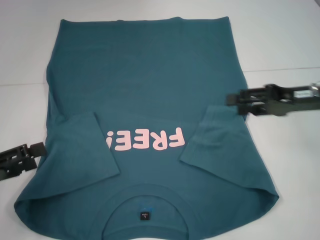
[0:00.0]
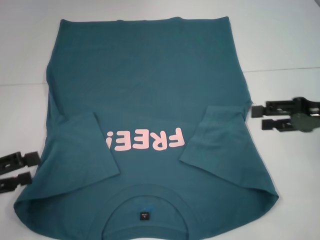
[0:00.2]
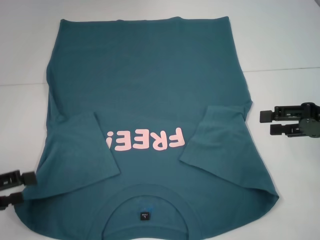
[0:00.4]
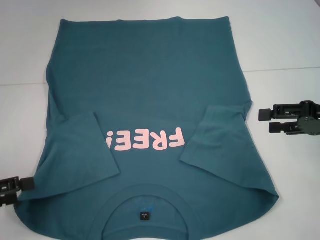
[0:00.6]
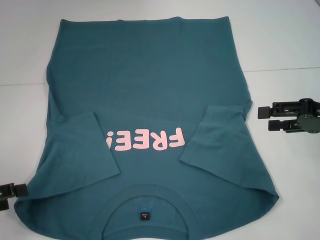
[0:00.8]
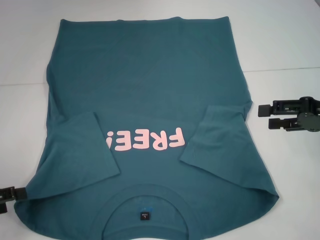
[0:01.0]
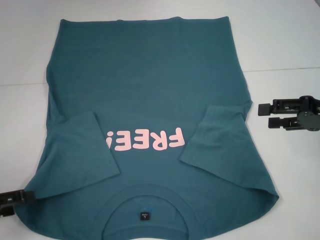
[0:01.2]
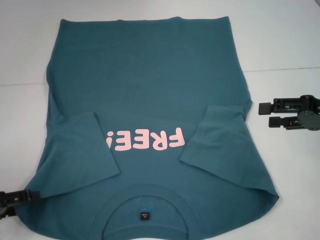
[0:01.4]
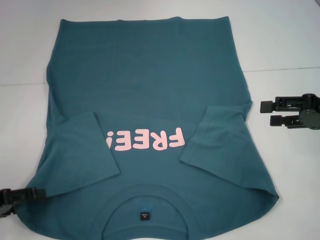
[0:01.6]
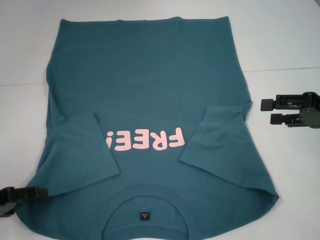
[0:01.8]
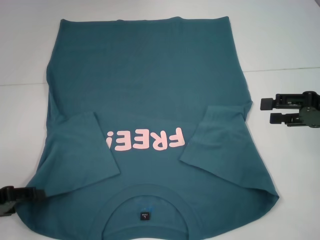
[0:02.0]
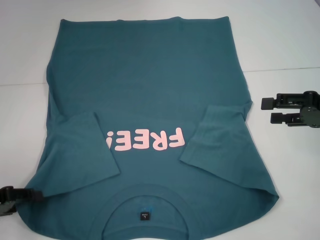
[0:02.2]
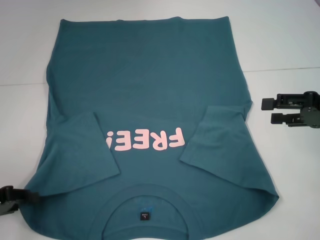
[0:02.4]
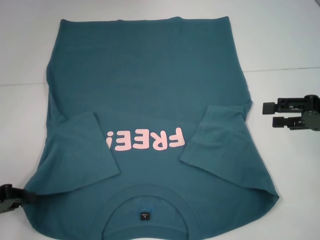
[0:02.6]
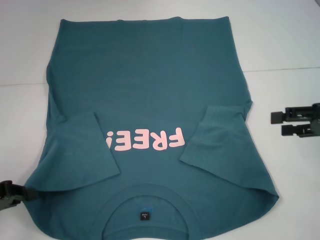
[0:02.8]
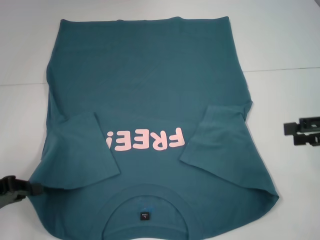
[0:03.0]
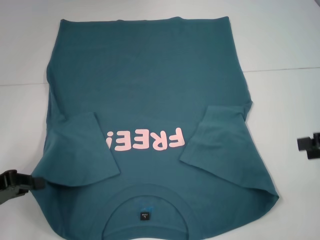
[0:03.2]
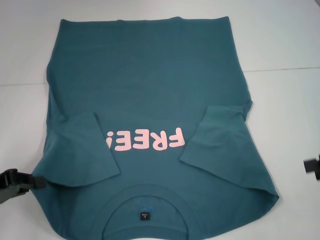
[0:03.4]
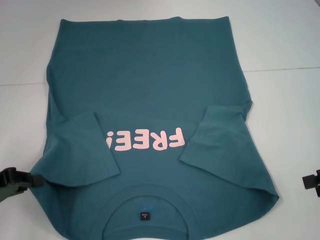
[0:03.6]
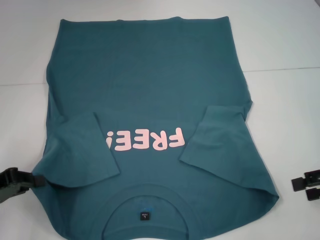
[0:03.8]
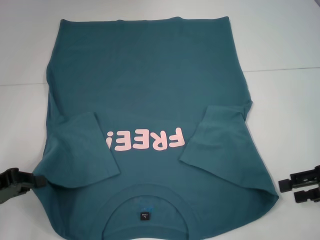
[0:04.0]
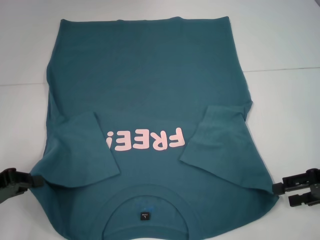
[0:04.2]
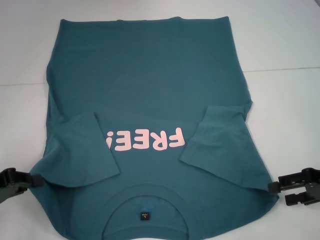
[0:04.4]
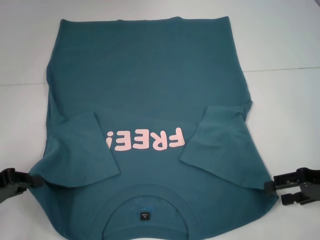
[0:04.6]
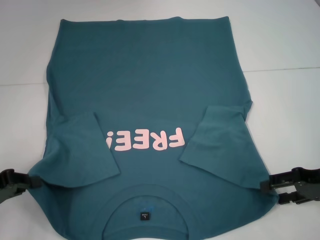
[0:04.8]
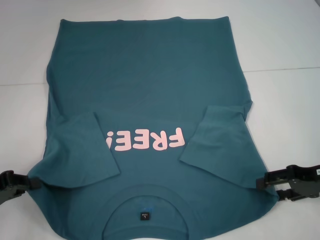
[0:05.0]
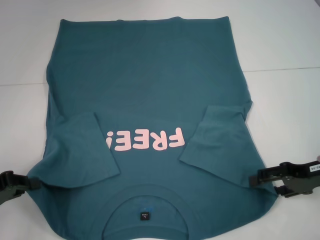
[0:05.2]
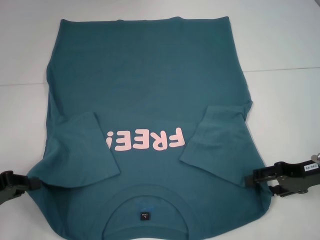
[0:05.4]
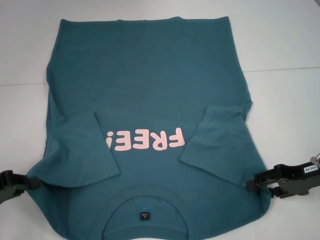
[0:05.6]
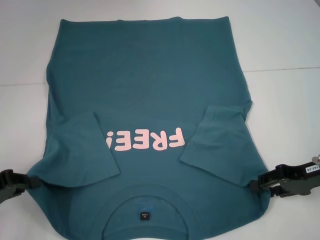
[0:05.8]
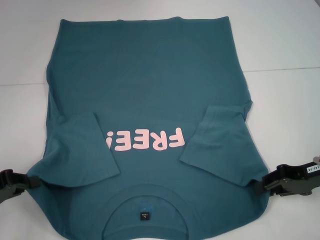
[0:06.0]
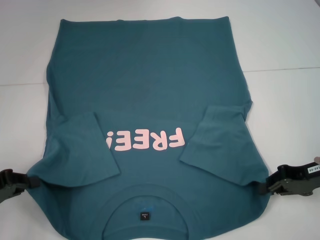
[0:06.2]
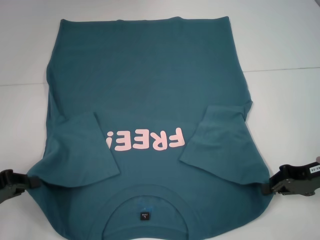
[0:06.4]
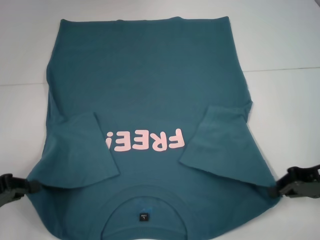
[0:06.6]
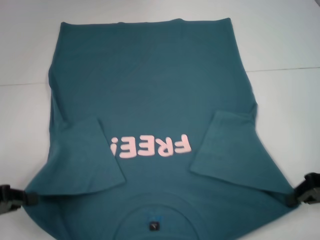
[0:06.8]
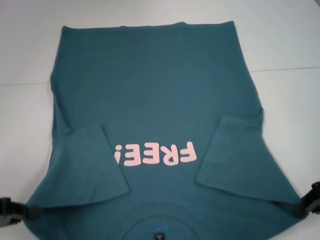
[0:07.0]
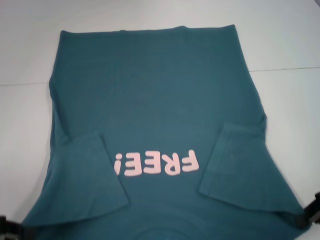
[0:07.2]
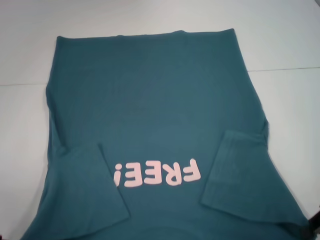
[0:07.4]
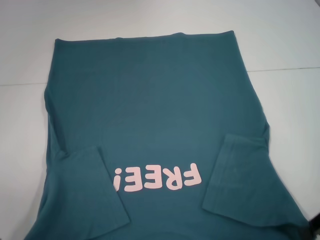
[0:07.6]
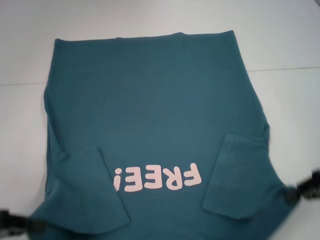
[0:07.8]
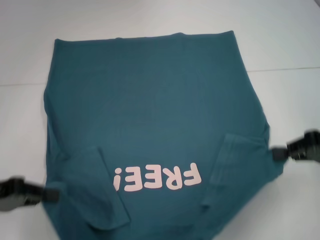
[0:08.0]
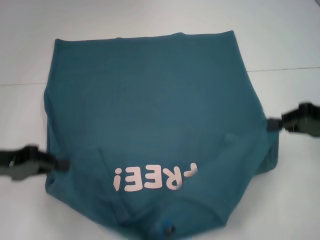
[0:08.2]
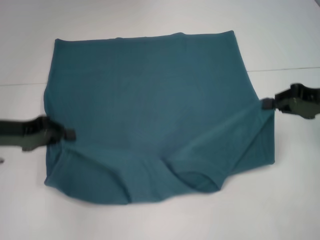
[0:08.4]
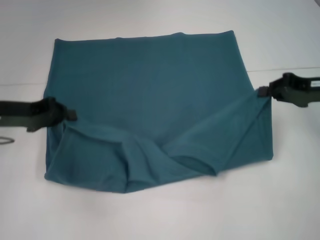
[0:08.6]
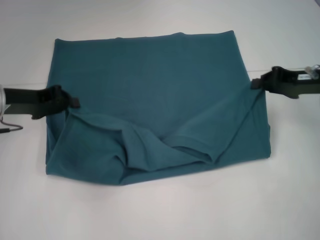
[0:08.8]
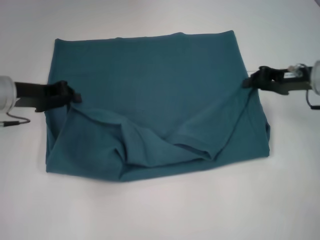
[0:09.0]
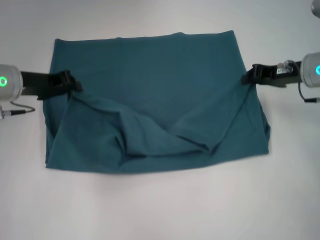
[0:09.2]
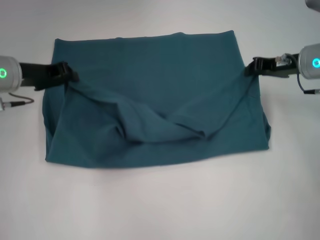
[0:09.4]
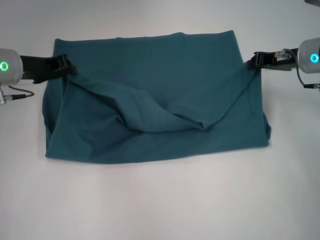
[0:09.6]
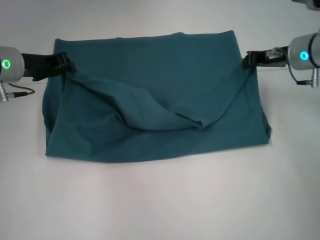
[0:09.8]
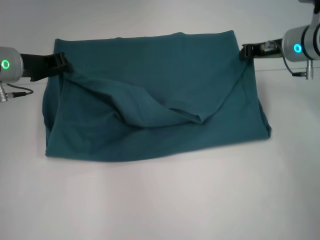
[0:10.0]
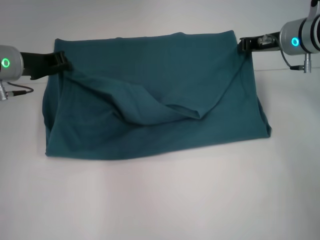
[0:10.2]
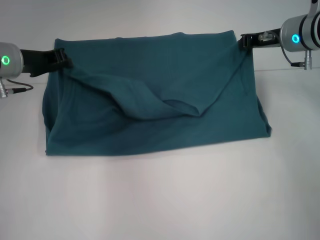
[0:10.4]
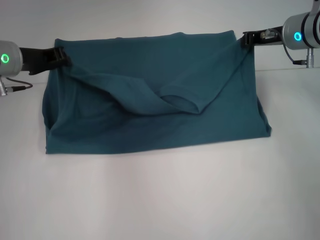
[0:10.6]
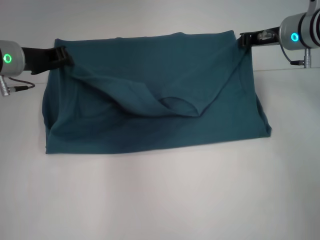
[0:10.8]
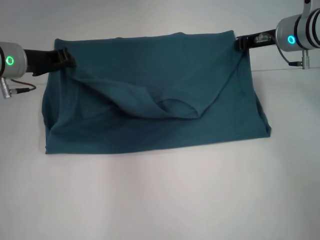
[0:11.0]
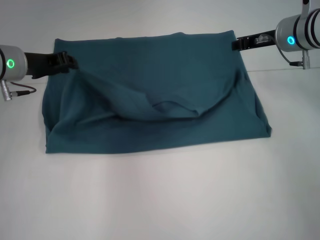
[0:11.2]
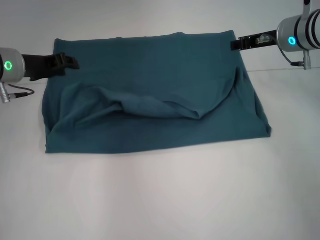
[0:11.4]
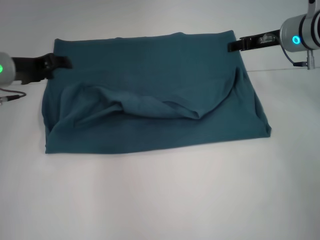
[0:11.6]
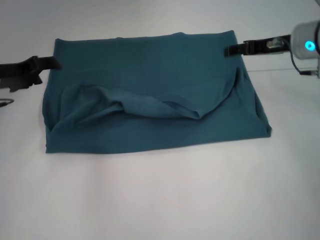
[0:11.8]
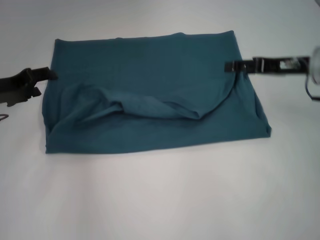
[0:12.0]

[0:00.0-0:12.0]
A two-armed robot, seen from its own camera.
Step, 0:00.0 to 0:02.4: Grab the bottom left corner with your left hand.
Step, 0:02.6 to 0:06.2: Grab the bottom right corner with your right hand.
Step, 0:06.4 to 0:11.2: Fold the clothes to the right.
0:00.0 to 0:01.6: The right gripper ends up about 5 cm from where it was.
0:01.6 to 0:03.0: The left gripper closes.
0:03.0 to 0:04.4: The right gripper moves downward, approximately 5 cm.
0:04.4 to 0:06.0: The right gripper closes.
0:06.0 to 0:07.6: The grippers both shift backward by some 5 cm. The right gripper closes up.
0:07.6 to 0:09.0: The left gripper goes approximately 20 cm forward and to the right; the right gripper travels forward and to the left by roughly 15 cm.
0:09.0 to 0:10.4: The right gripper heads forward, covering approximately 5 cm.
0:10.4 to 0:12.0: The left gripper is displaced to the left by roughly 5 cm, and opens, while the right gripper shifts about 5 cm backward, and opens up.

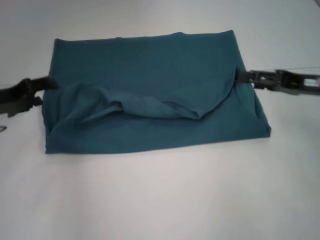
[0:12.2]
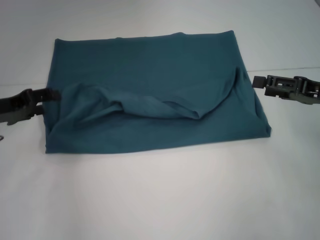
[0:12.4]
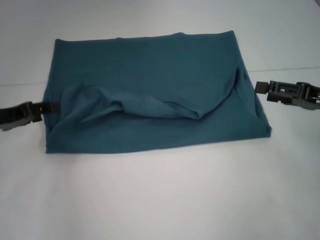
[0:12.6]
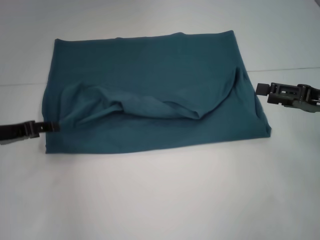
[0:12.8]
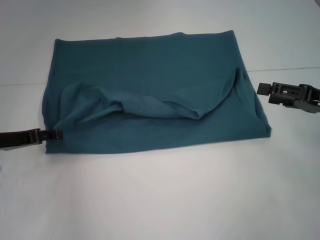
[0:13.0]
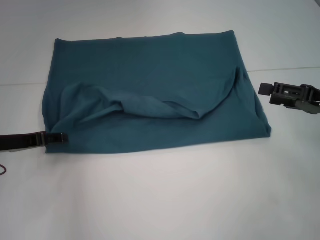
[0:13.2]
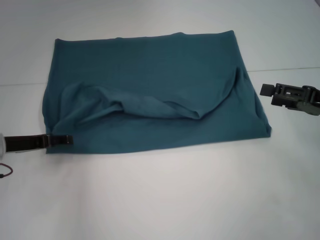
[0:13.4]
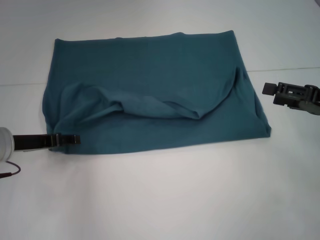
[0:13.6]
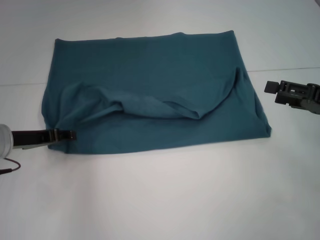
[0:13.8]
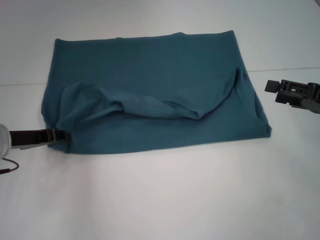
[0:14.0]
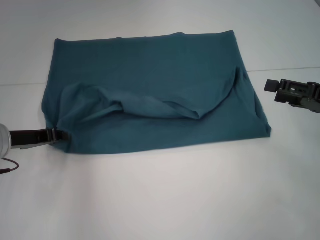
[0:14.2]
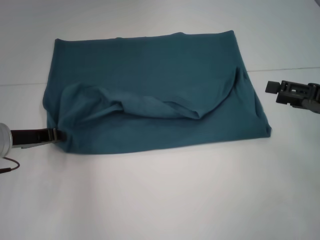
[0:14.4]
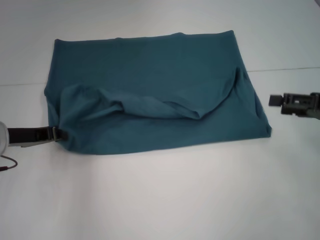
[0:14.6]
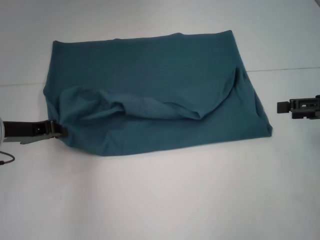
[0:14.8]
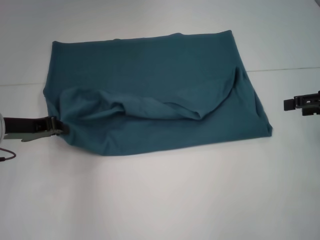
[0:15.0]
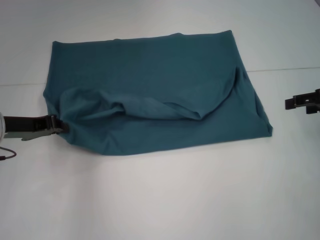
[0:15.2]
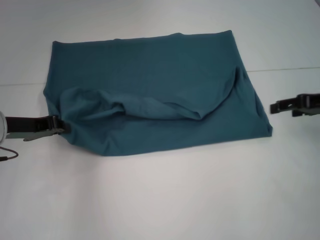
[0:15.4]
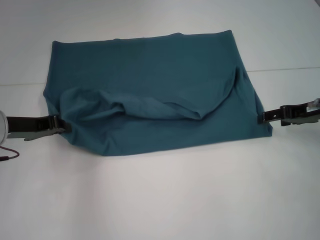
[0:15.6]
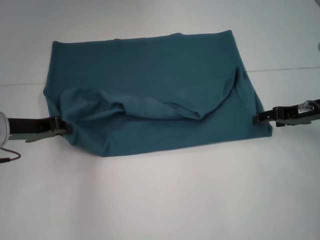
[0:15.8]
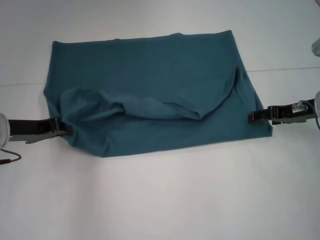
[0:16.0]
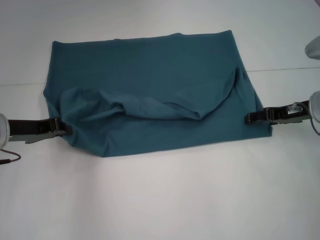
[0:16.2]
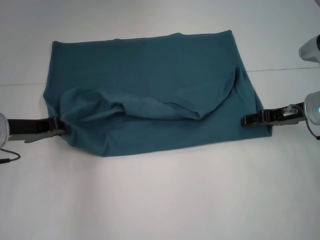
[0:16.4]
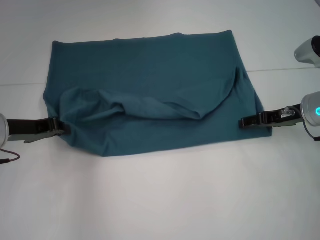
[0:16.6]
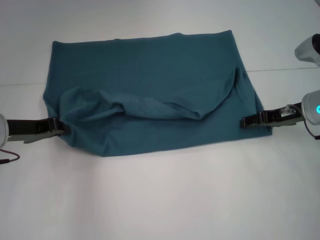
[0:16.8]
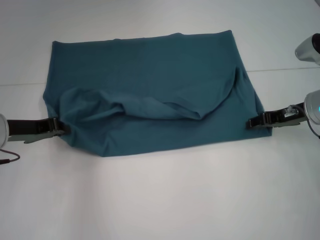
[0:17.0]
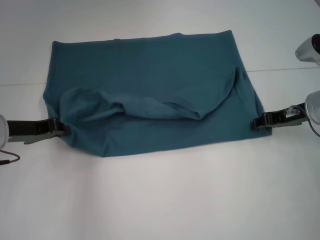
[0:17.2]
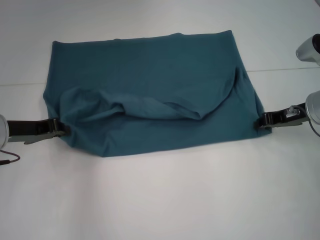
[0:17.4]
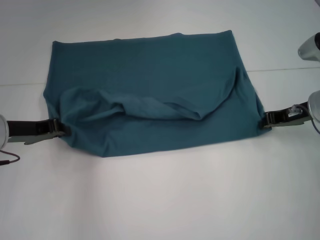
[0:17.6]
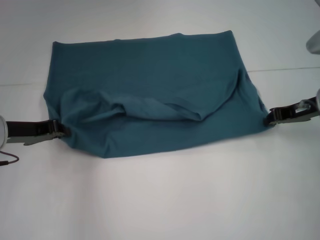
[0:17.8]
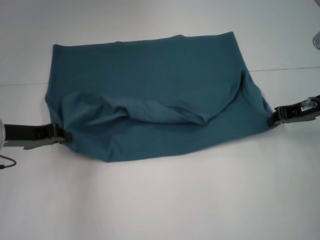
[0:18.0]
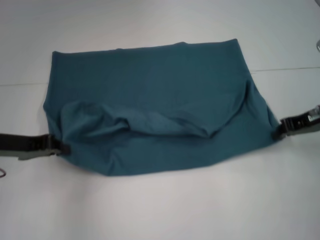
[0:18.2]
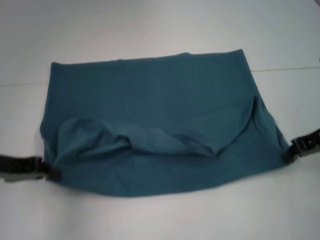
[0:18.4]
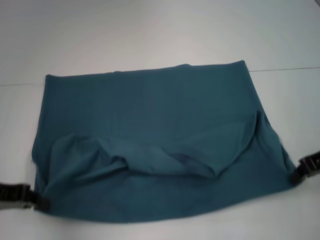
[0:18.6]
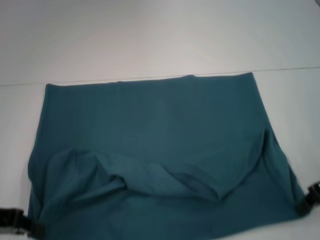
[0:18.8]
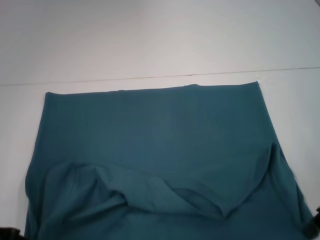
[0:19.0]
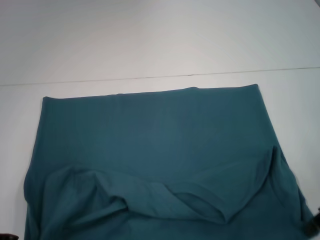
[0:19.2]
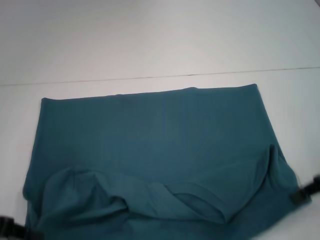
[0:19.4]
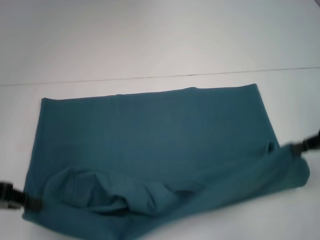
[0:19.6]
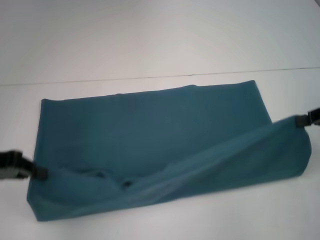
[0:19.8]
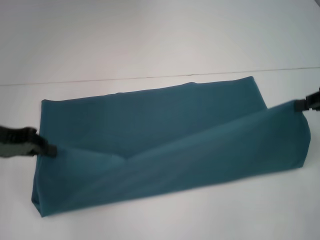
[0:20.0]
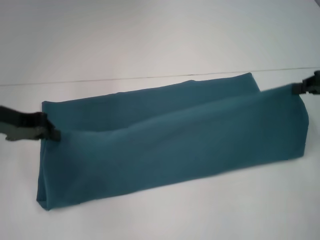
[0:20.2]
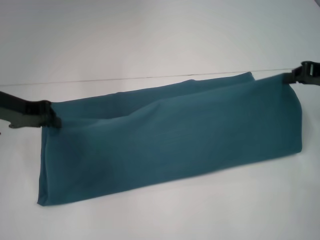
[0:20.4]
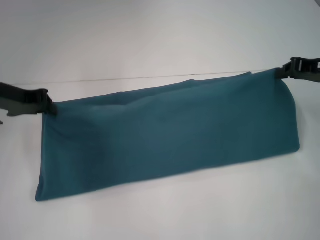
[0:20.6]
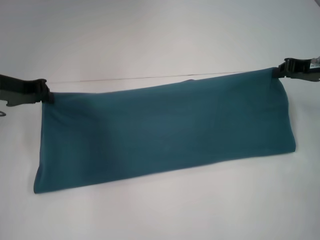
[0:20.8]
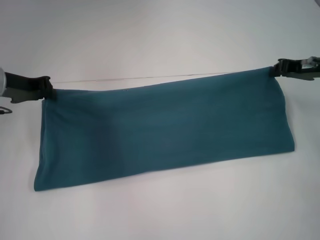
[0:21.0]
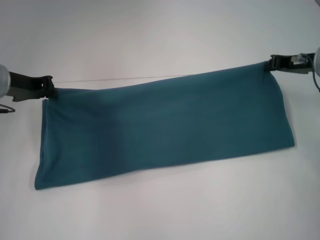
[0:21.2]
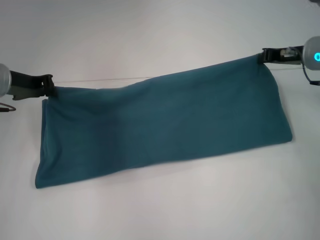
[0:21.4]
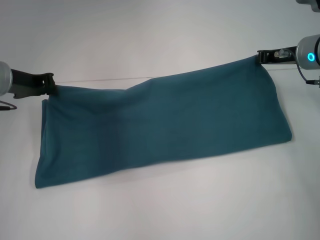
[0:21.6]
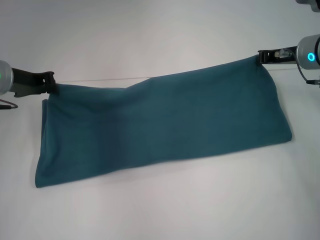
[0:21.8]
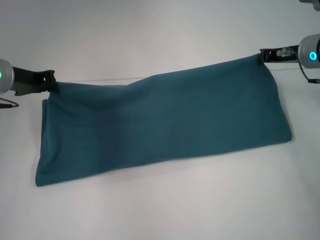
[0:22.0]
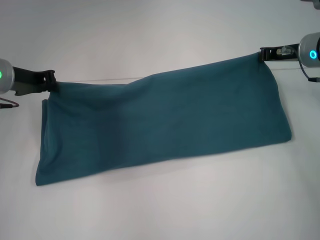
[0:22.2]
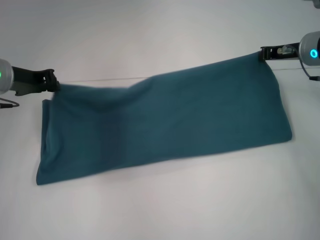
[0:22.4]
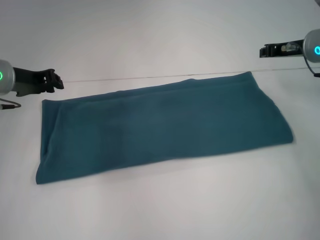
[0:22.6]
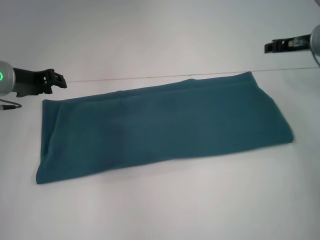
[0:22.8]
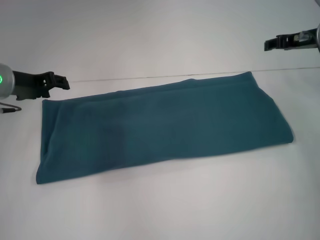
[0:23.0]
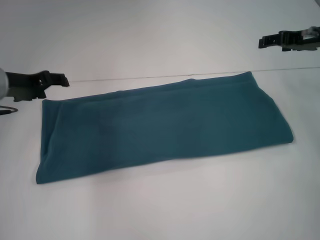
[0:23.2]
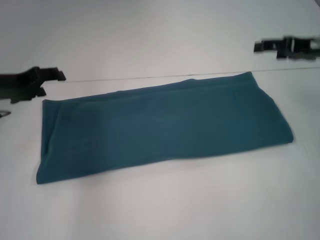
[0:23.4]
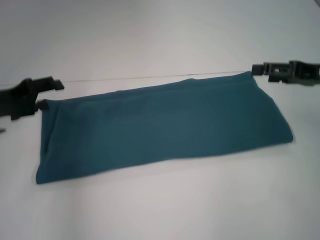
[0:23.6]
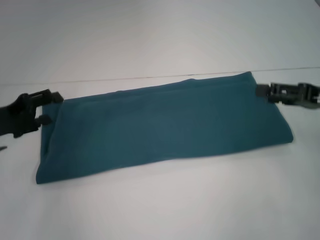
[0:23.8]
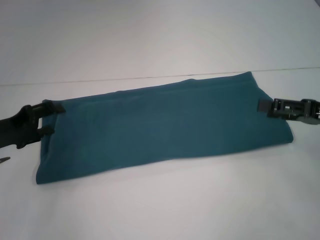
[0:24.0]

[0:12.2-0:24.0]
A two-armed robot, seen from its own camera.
Step, 0:12.2 to 0:19.0: Pull the clothes with your left hand.
Step, 0:12.2 to 0:19.0: Pull the clothes with your right hand.
Step, 0:19.2 to 0:22.4: Fold the clothes to the right.
0:12.2 to 0:13.6: The left gripper ends up about 5 cm from where it was. The right gripper ends up about 5 cm from where it was.
0:13.6 to 0:15.2: The right gripper changes place by roughly 5 cm; the left gripper closes its fingers.
0:15.2 to 0:16.6: The right gripper is displaced to the left and downward by approximately 10 cm.
0:16.6 to 0:18.2: The right gripper ends up about 5 cm from where it was, and closes up.
0:18.2 to 0:19.6: The grippers both shift backward by about 5 cm.
0:19.6 to 0:21.0: The left gripper is displaced forward and to the right by about 15 cm. Meanwhile the right gripper goes roughly 10 cm forward.
0:21.0 to 0:22.6: The right gripper shifts by some 5 cm.
0:22.6 to 0:24.0: The right gripper goes approximately 15 cm backward, and opens up. Meanwhile the left gripper heads backward and downward, covering about 10 cm, and opens its fingers.
